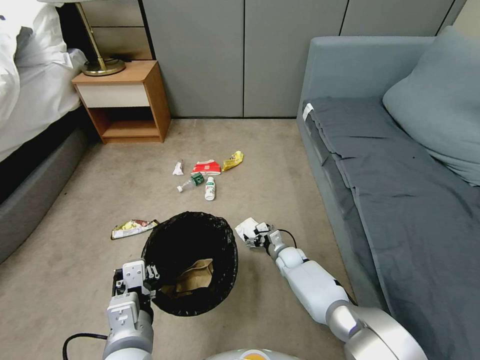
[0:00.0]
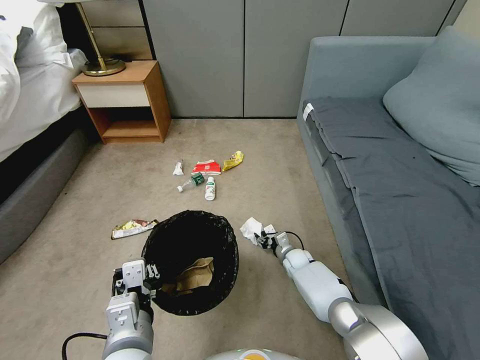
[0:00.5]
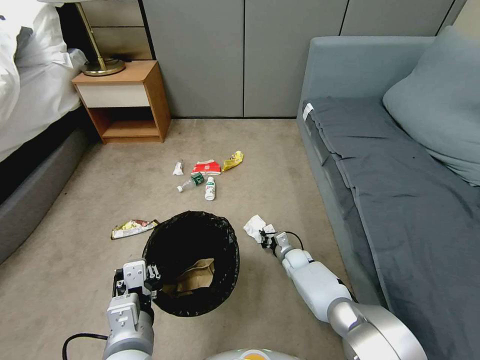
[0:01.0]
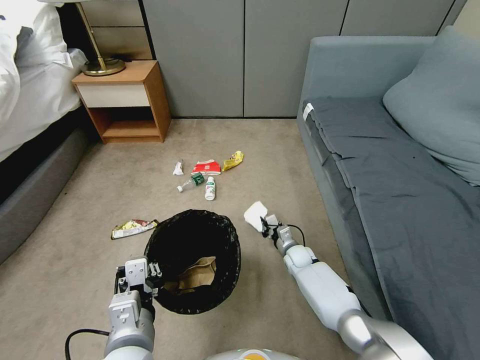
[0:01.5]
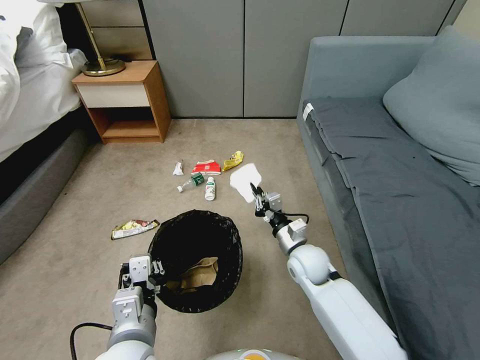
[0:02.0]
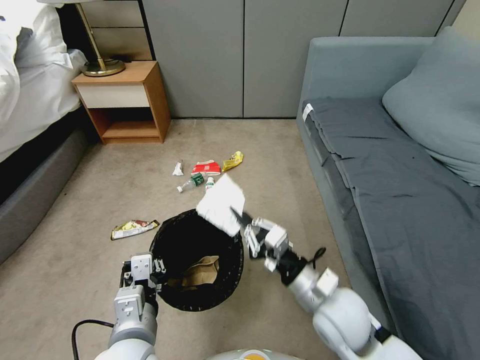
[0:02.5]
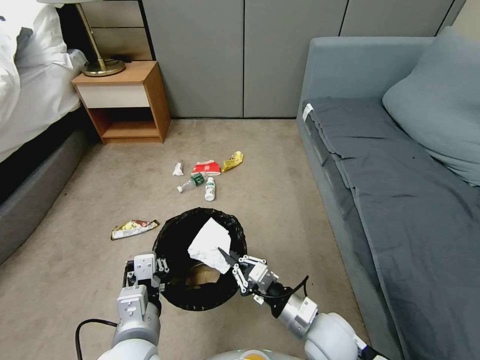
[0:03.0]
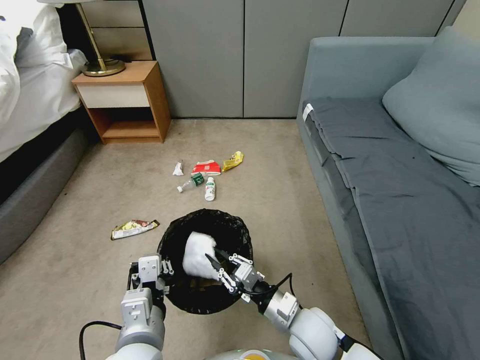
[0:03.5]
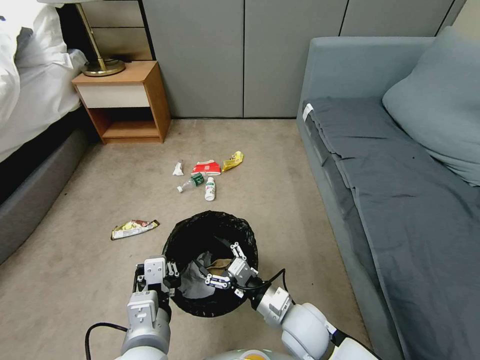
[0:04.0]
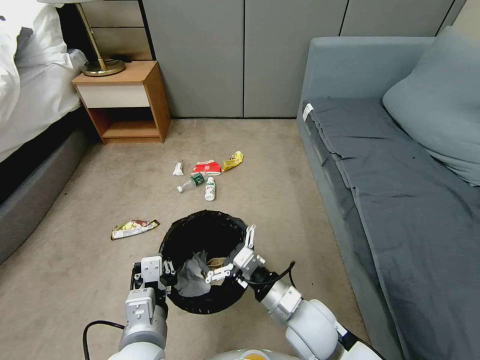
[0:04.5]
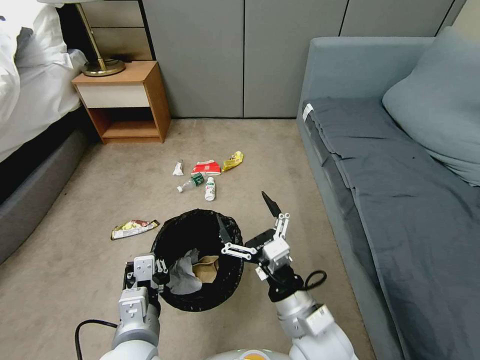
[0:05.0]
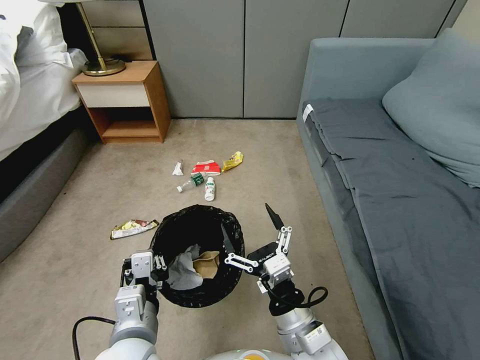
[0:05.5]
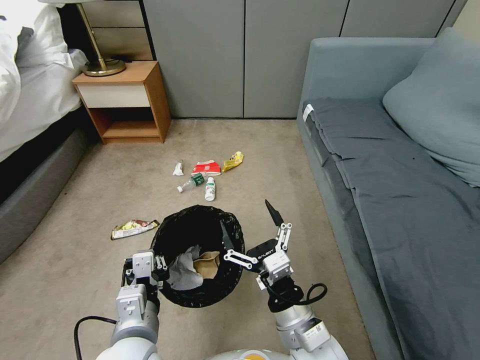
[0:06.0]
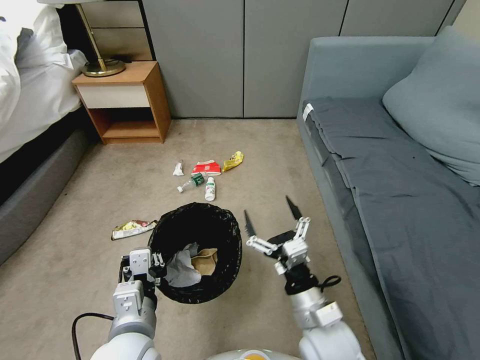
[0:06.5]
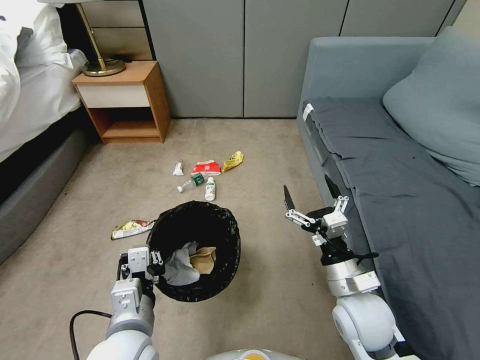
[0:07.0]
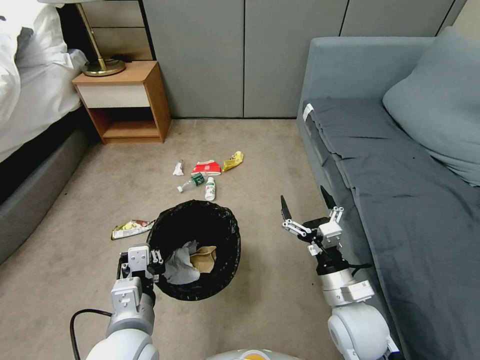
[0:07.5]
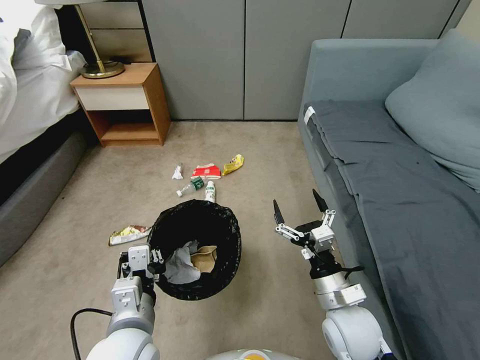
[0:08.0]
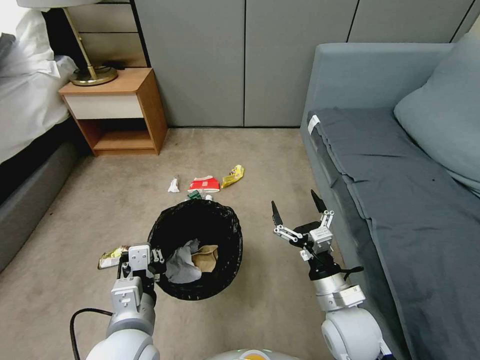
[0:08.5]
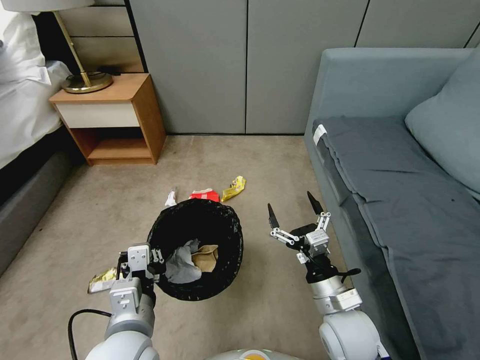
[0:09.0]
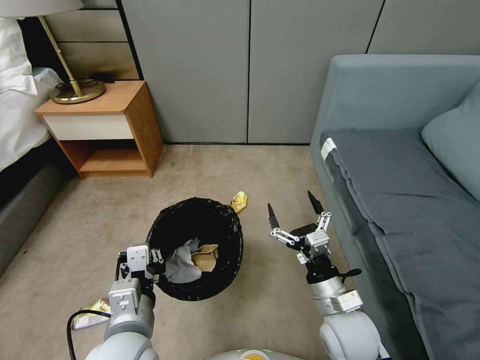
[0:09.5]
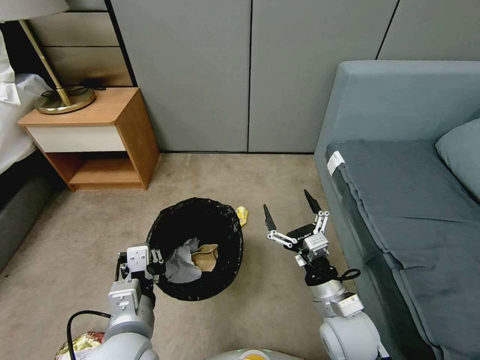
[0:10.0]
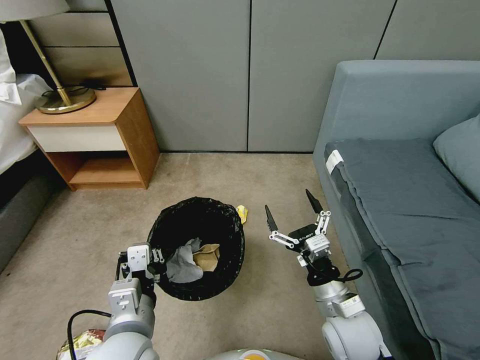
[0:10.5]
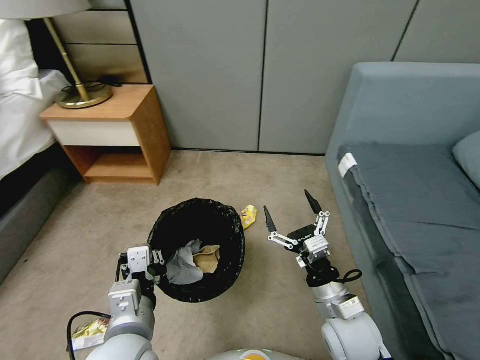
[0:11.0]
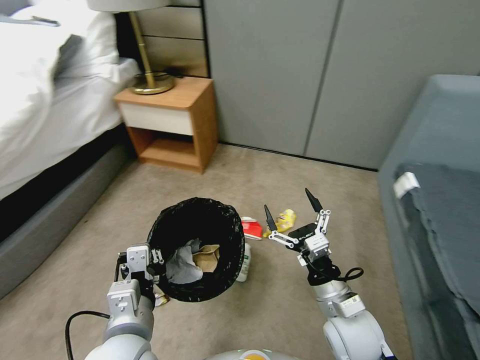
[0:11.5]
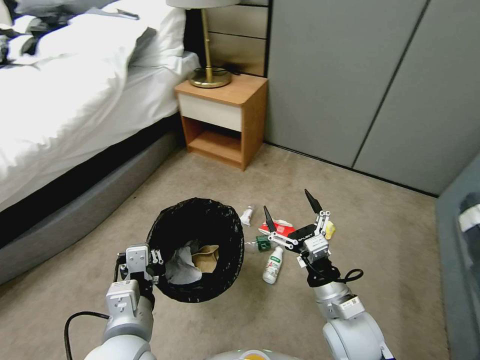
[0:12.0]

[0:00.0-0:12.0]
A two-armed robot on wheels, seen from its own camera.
Task of the whole recording: Pick up the trash bin, then pick up the garbage from the floor and place it into the trash bin.
0:00.0 to 0:02.0: The right gripper moves upward and backward, some 15 cm, and closes.
0:02.0 to 0:04.0: The right gripper heads backward, covering about 15 cm, and opens.
0:04.0 to 0:06.0: The right gripper is displaced upward and backward by approximately 10 cm.
0:06.0 to 0:08.0: The right gripper heads to the right and forward, covering roughly 10 cm.

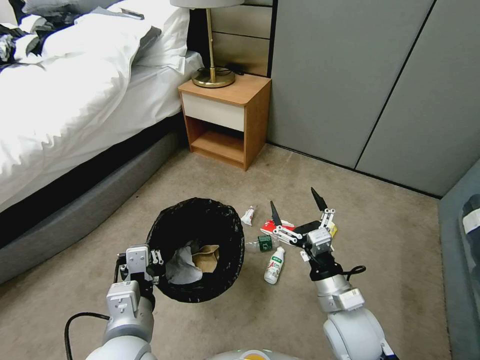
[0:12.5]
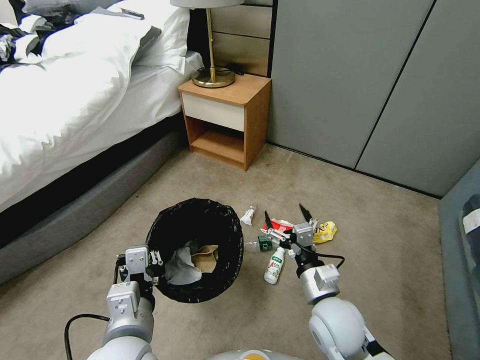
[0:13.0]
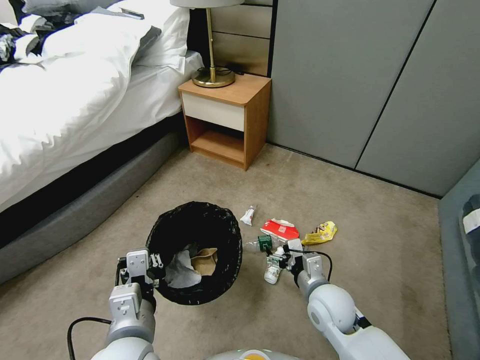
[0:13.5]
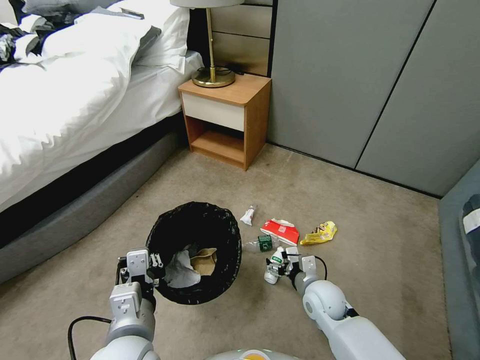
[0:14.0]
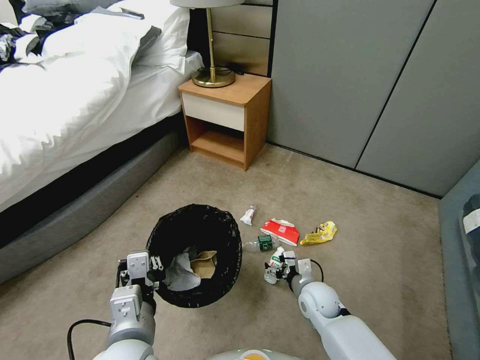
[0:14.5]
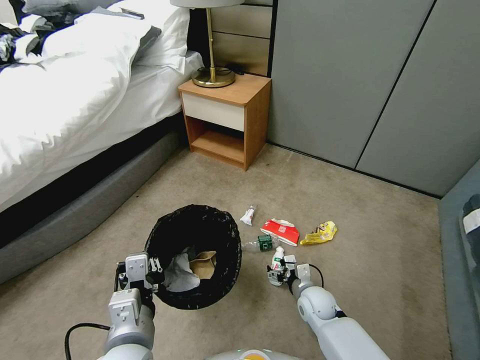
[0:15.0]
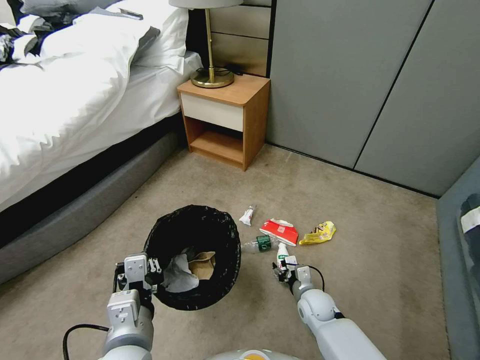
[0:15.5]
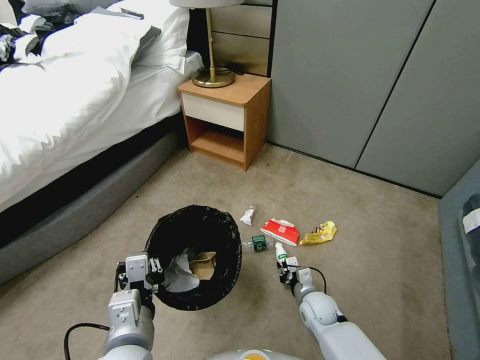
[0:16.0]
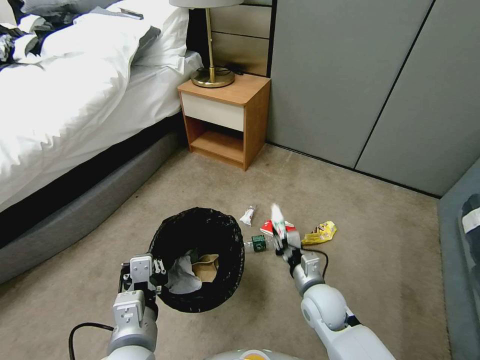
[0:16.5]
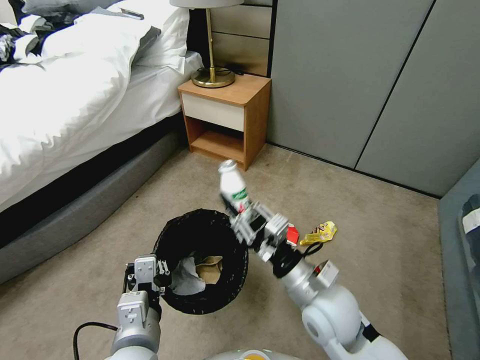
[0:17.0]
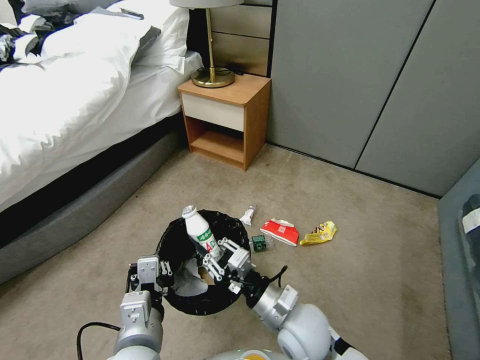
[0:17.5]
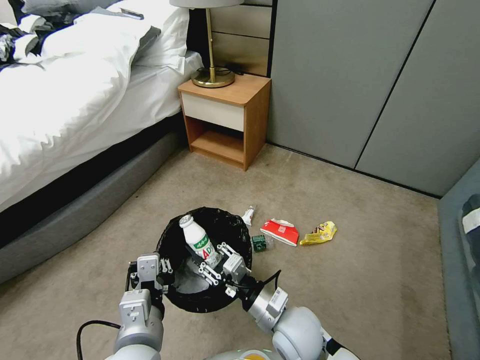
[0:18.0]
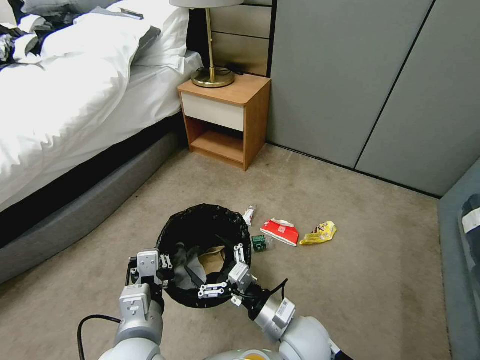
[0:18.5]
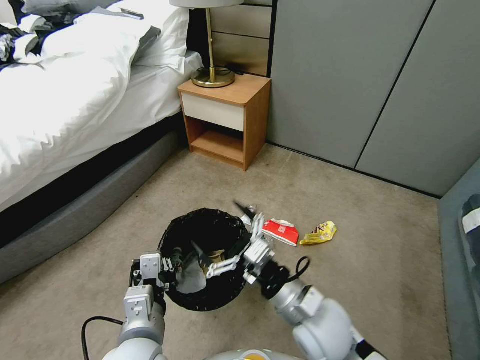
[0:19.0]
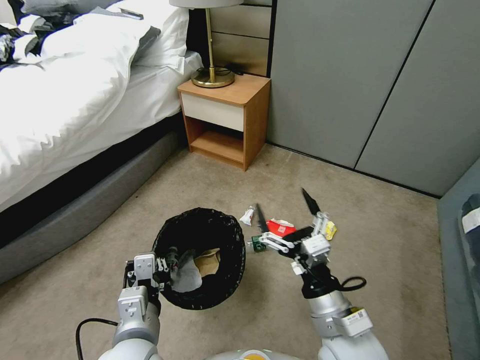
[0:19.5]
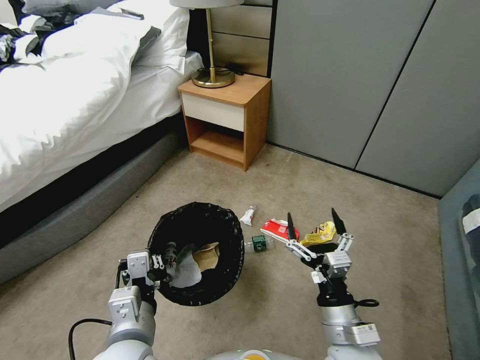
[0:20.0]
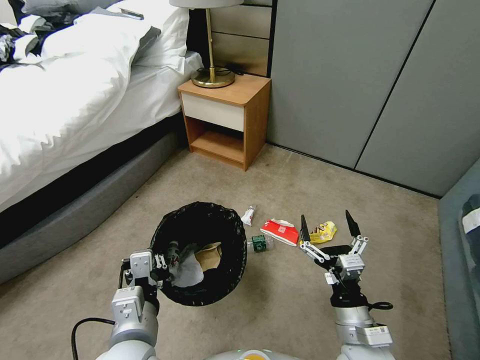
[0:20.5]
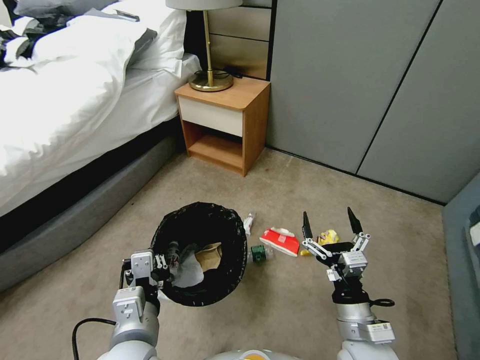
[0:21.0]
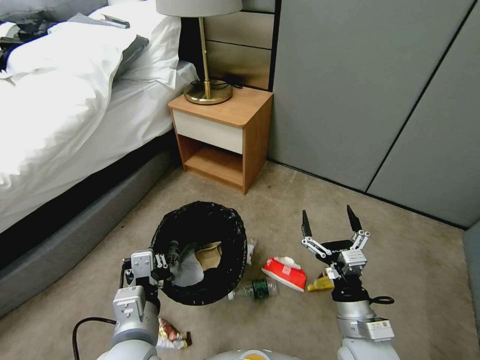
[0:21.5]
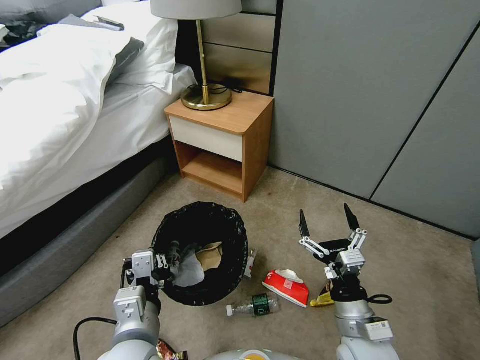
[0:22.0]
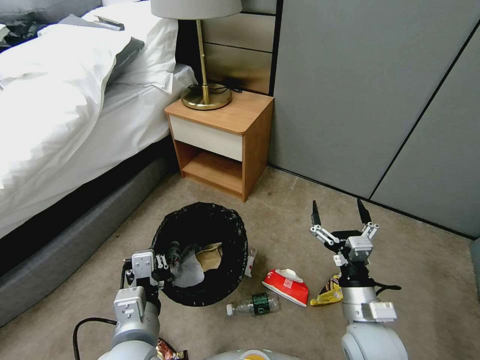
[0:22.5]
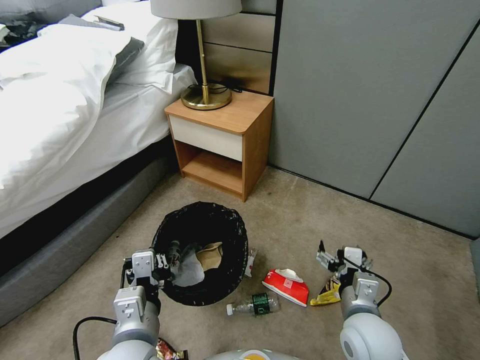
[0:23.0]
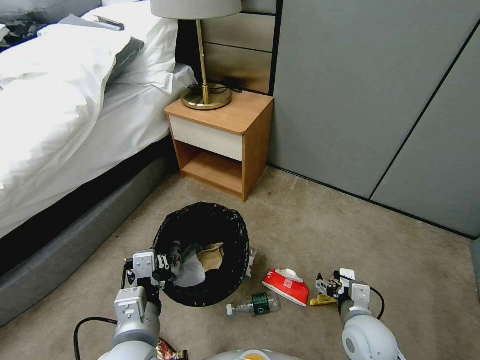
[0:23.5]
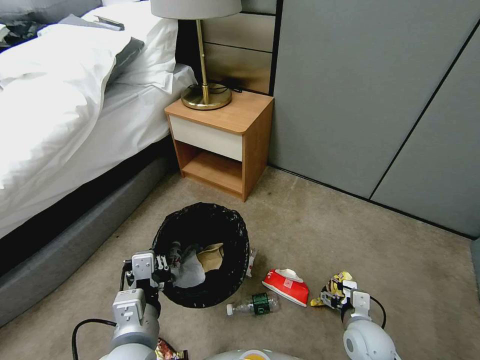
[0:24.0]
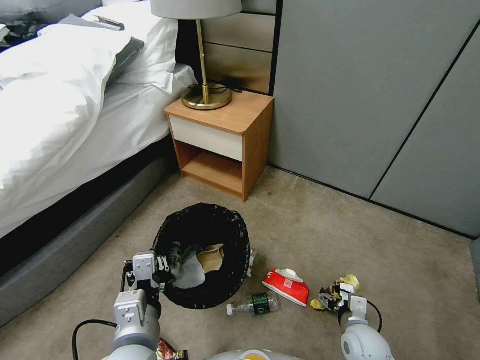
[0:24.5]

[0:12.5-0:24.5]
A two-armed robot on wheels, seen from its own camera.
Task of the whole recording: Pick up the trash bin, then pick up the garbage from the floor and place it into the trash bin.
0:12.5 to 0:14.5: The right gripper travels downward and forward by about 20 cm.
0:14.5 to 0:16.5: The right gripper travels upward by about 5 cm, and closes.
0:16.5 to 0:18.5: The right gripper moves backward, to the left and upward, approximately 15 cm, and opens up.
0:18.5 to 0:20.5: The right gripper shifts about 10 cm to the right.
0:22.5 to 0:24.5: The right gripper travels downward by some 15 cm.

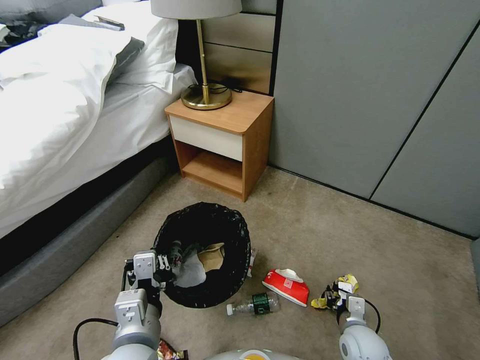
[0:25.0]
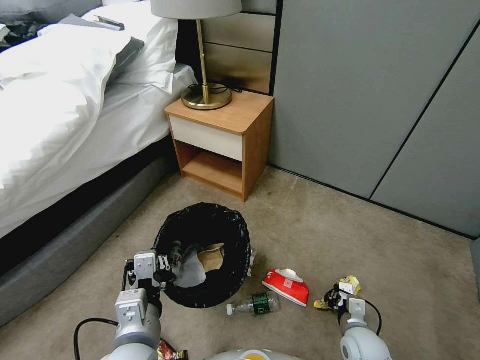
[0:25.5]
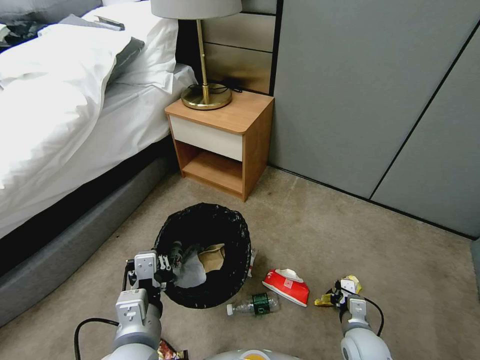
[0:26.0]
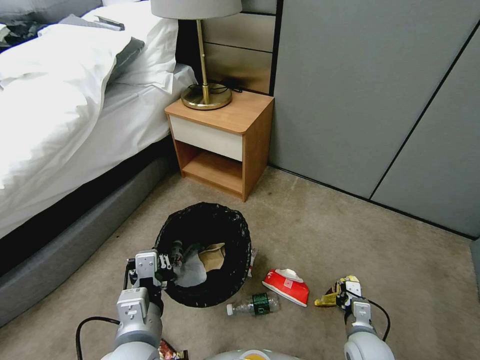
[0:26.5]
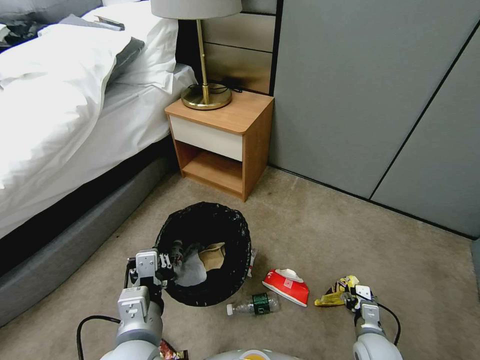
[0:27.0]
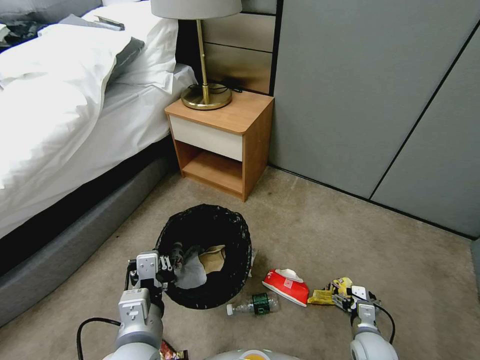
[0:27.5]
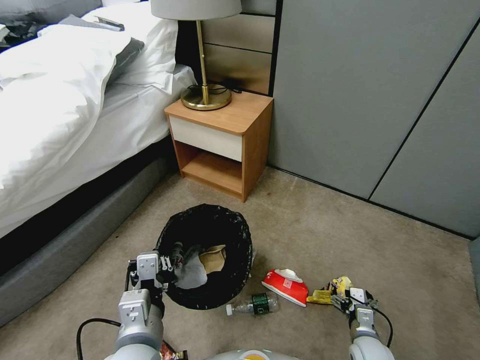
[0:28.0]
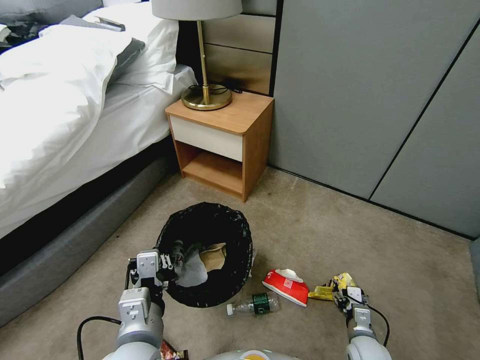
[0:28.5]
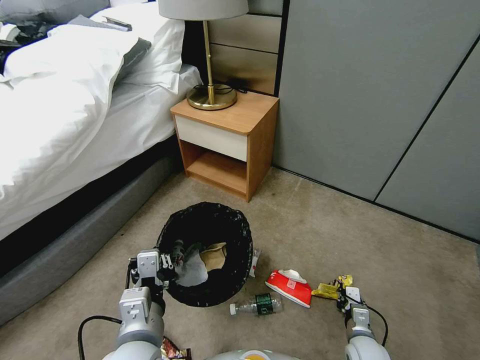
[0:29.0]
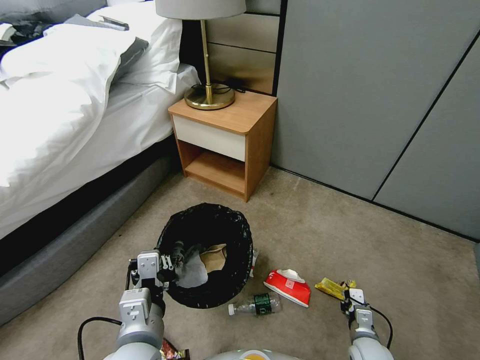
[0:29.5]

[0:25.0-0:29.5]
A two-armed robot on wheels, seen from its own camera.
Task of the whole recording: Pick up the trash bin, then pick up the garbage from the floor and place it into the trash bin.
0:25.0 to 0:27.0: The right gripper closes, then opens again.
0:27.0 to 0:29.5: The right gripper closes.
